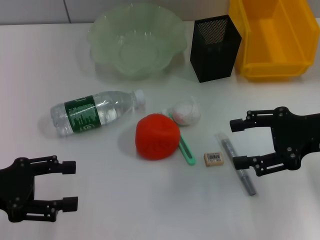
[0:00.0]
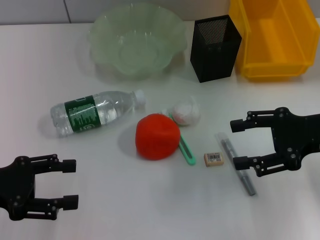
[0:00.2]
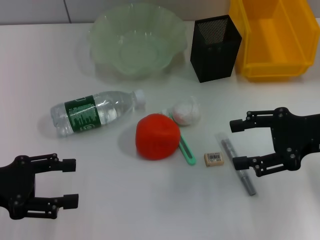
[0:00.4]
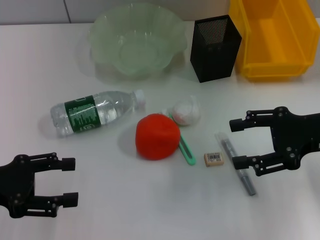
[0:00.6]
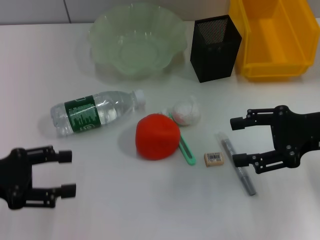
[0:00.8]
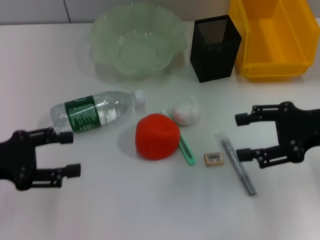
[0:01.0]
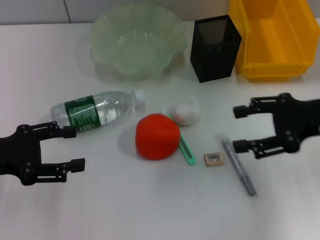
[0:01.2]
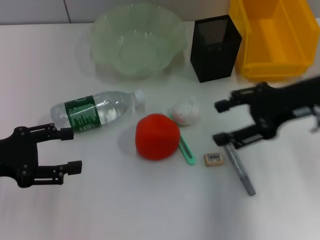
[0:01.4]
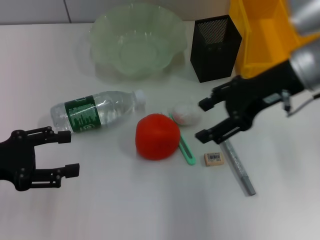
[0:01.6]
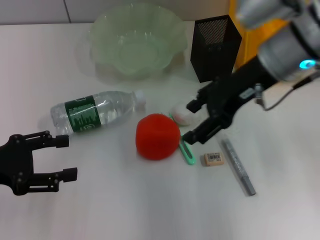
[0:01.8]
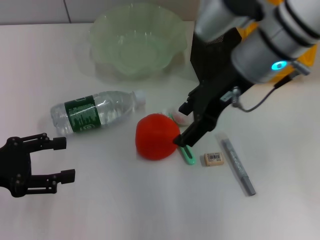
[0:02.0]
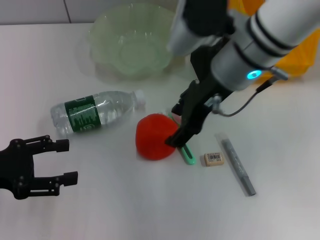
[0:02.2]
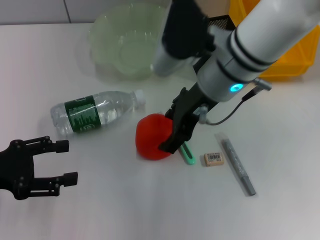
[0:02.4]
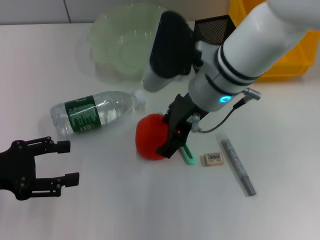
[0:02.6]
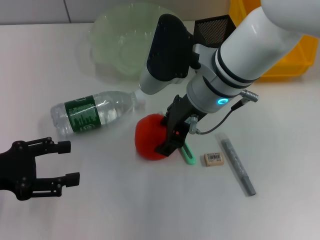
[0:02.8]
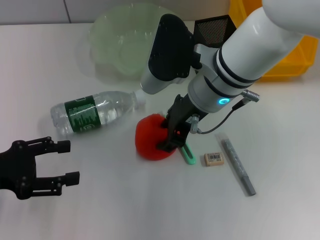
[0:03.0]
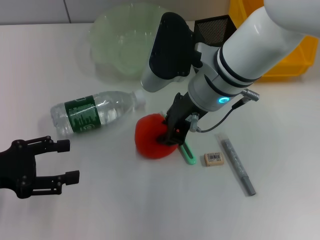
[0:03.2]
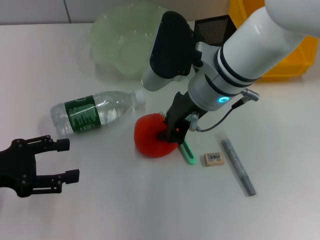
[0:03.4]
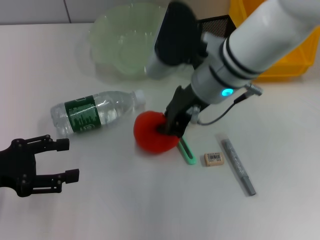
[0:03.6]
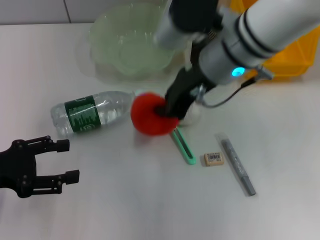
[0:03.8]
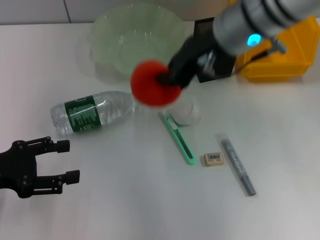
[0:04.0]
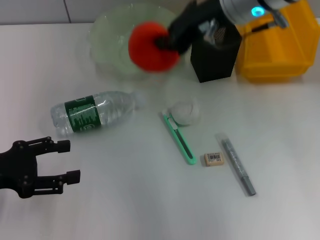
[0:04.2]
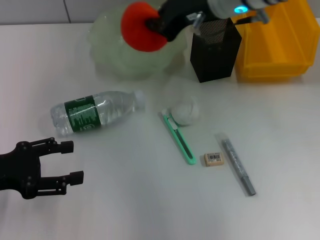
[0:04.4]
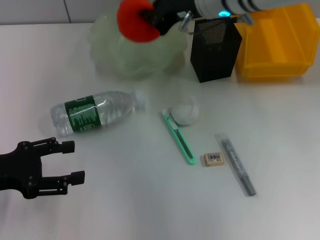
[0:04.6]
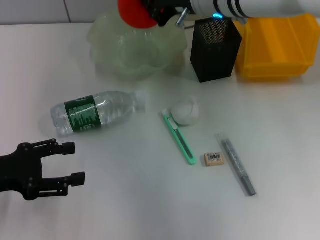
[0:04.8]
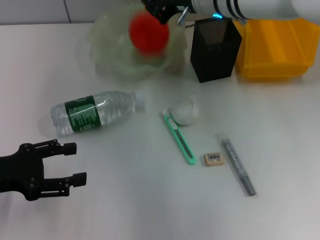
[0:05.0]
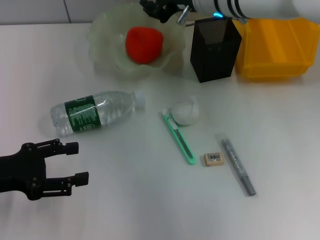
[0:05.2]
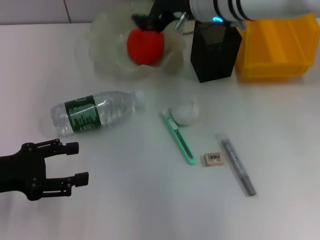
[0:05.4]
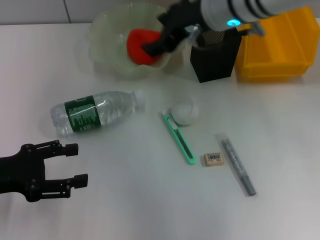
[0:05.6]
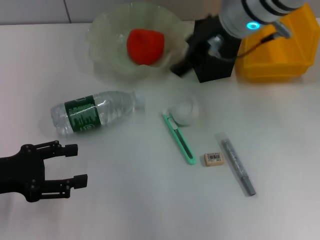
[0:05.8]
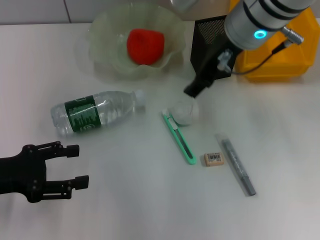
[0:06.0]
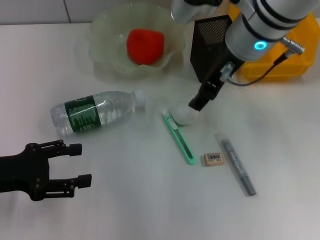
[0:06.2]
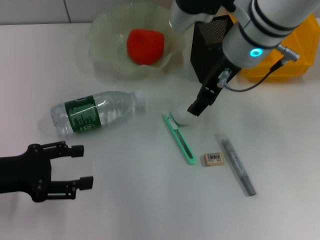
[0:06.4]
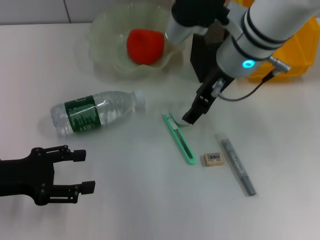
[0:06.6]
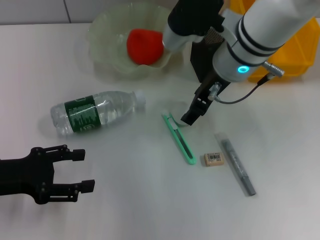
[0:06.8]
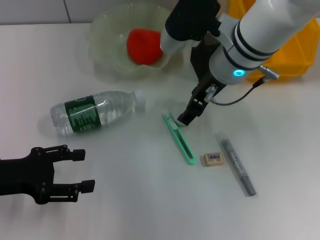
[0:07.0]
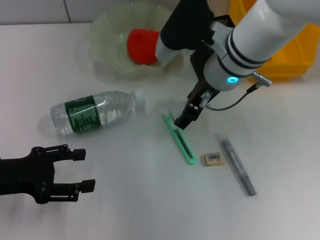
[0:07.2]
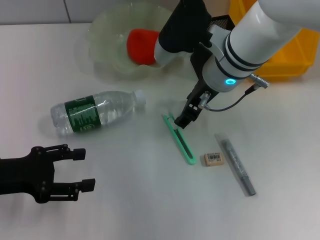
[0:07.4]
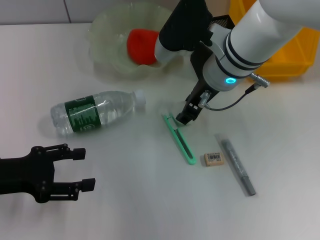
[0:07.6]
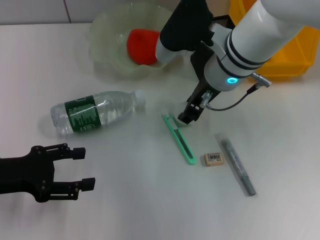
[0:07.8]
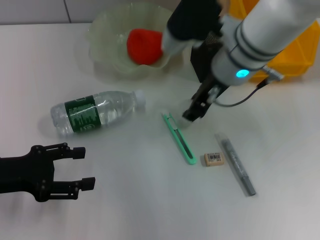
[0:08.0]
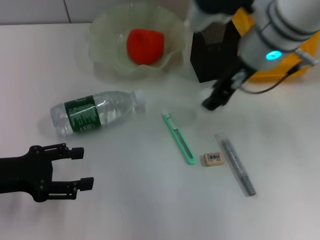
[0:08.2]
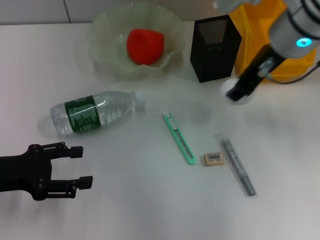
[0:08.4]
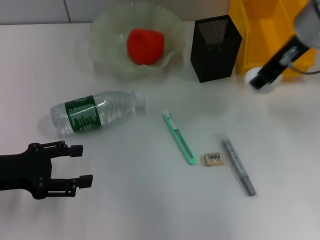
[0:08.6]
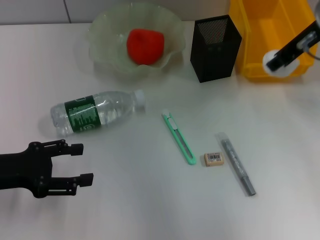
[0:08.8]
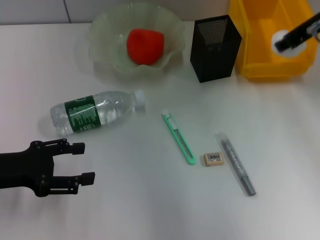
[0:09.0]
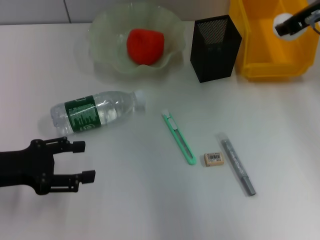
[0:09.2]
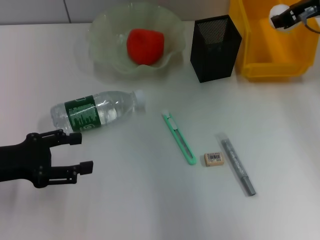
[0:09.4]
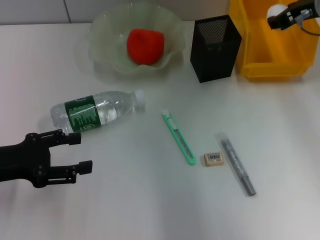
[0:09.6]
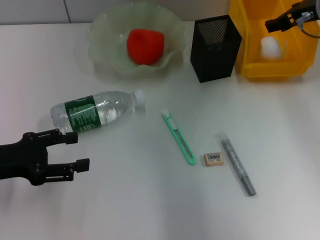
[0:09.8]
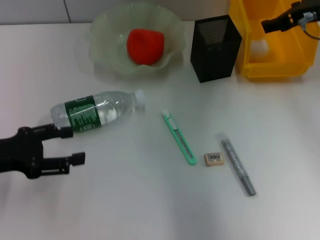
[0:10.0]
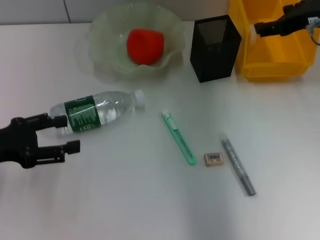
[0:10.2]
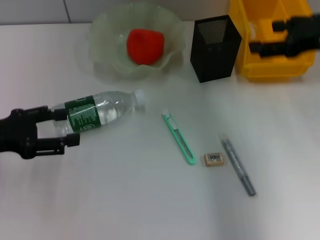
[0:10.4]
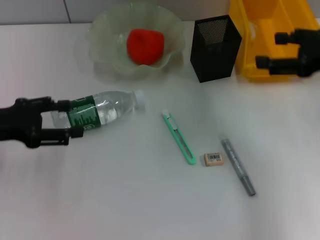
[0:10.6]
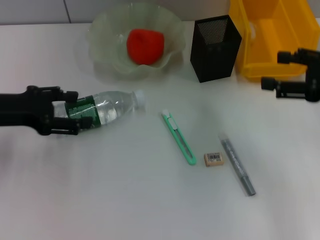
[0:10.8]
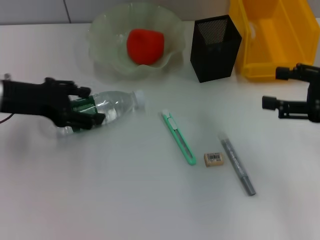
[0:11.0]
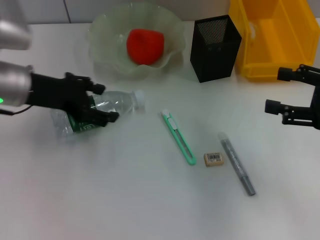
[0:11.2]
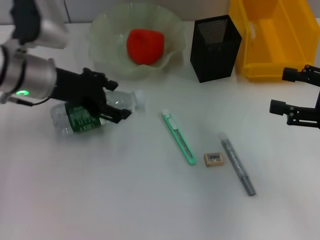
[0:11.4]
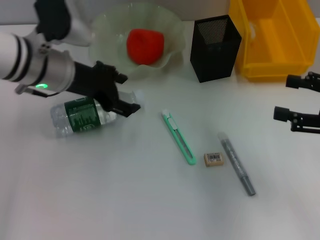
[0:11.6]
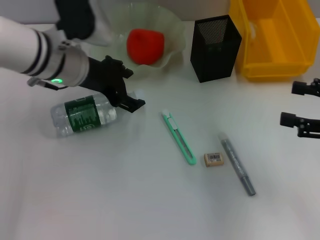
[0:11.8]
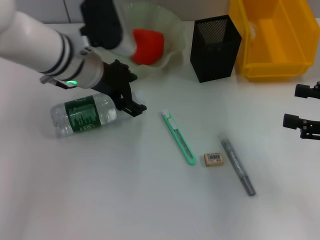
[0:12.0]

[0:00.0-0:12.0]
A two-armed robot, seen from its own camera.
Step, 0:00.0 to 0:03.2: Grab the orange with the right hand.
Step, 0:03.4 to 0:05.0: Place the orange into the fruit bowl with the right hand.
Step, 0:05.2 to 0:07.8: Grab the paper ball with the right hand.
Step, 0:08.0 to 0:10.0: Place the paper ball into the trash can with the right hand.
0:00.0 to 0:01.6: The right gripper heads to the left, upward and forward, covering roughly 15 cm.
0:01.6 to 0:03.0: The right gripper travels to the left by some 10 cm.
0:03.0 to 0:04.4: The right gripper goes some 10 cm upward and forward, and closes its fingers.
0:04.4 to 0:06.0: The right gripper opens.
0:06.0 to 0:07.6: The right gripper is displaced downward by approximately 10 cm.
0:07.6 to 0:09.0: The right gripper heads to the right and upward, covering about 15 cm.
0:09.0 to 0:10.4: The right gripper travels backward and to the right by roughly 10 cm, and opens its fingers.
0:10.4 to 0:12.0: The left gripper is displaced to the right and forward by about 25 cm; the right gripper shifts about 15 cm backward, downward and to the right.

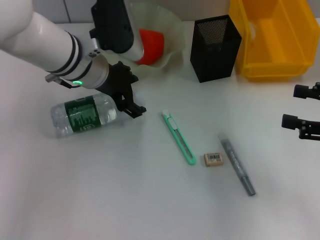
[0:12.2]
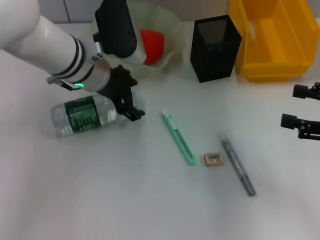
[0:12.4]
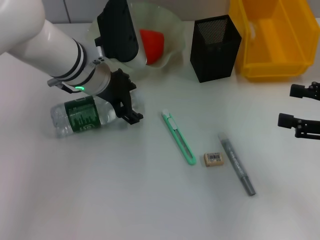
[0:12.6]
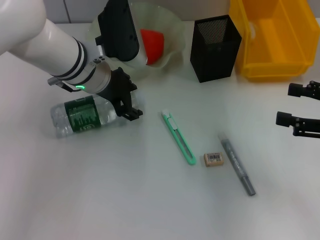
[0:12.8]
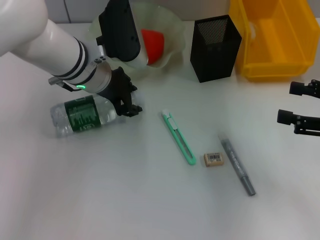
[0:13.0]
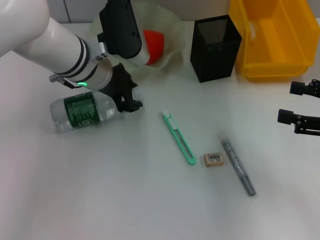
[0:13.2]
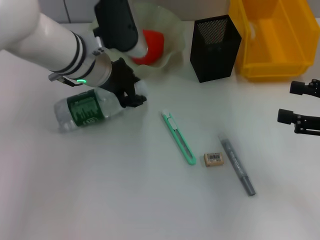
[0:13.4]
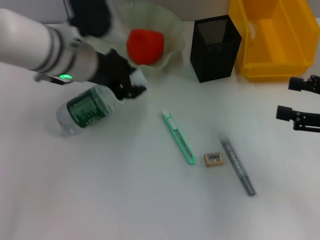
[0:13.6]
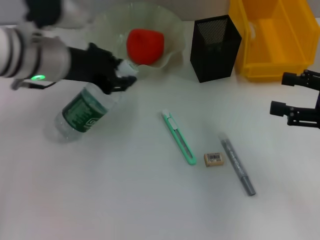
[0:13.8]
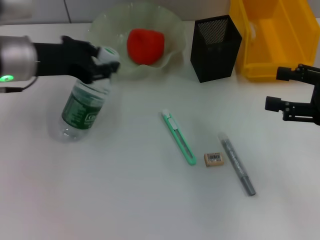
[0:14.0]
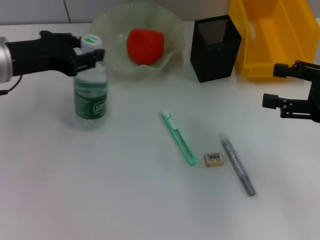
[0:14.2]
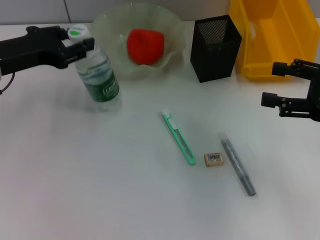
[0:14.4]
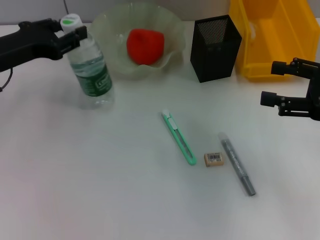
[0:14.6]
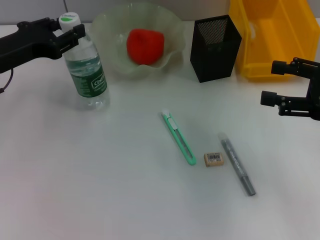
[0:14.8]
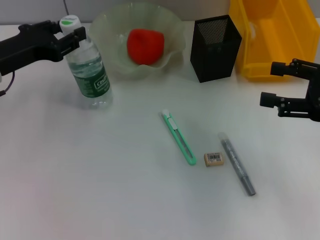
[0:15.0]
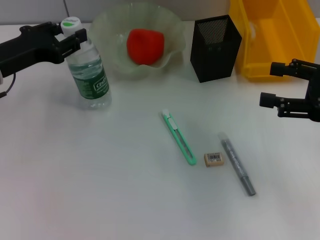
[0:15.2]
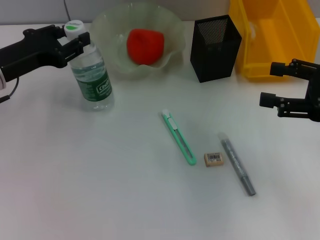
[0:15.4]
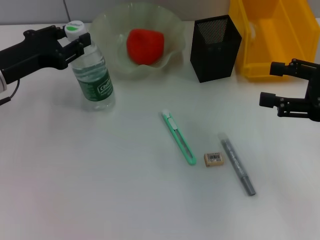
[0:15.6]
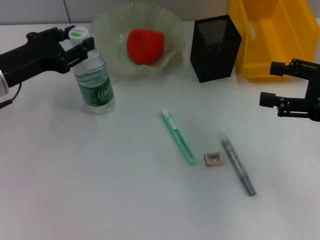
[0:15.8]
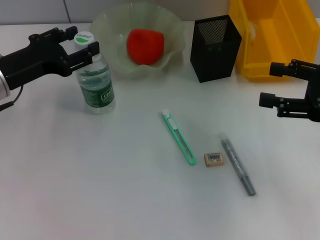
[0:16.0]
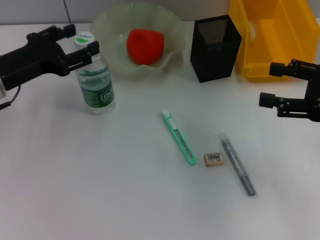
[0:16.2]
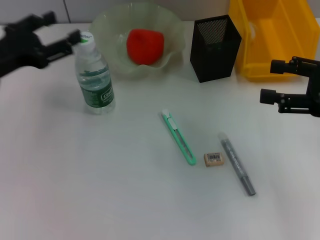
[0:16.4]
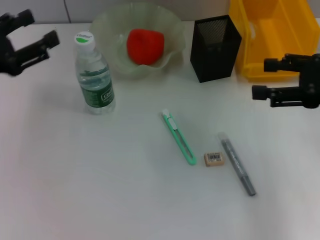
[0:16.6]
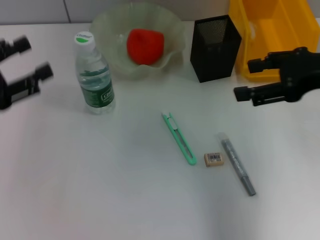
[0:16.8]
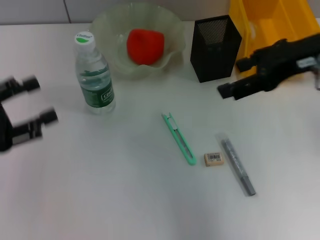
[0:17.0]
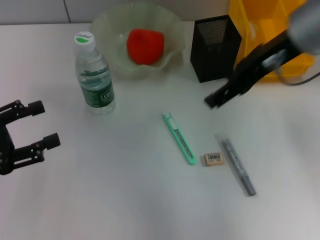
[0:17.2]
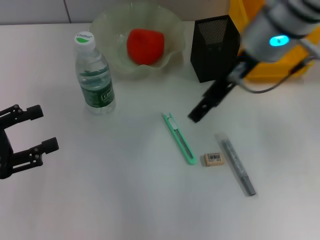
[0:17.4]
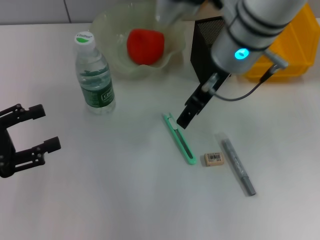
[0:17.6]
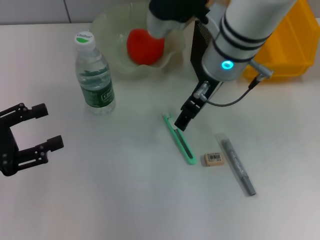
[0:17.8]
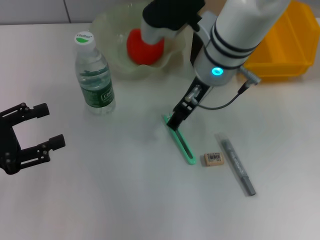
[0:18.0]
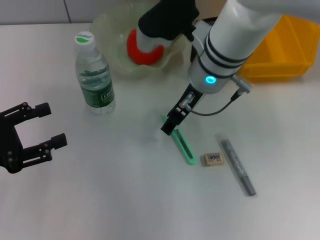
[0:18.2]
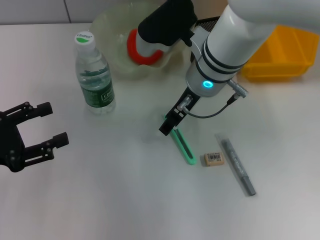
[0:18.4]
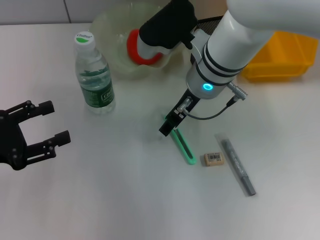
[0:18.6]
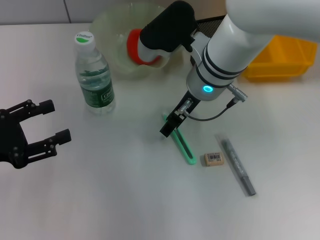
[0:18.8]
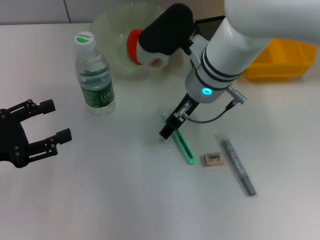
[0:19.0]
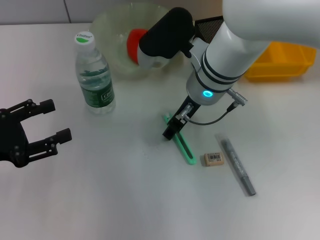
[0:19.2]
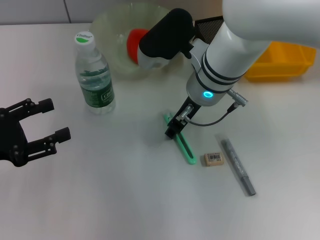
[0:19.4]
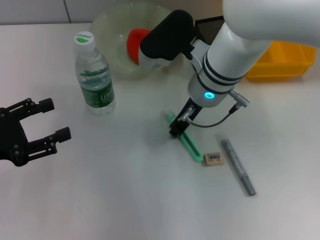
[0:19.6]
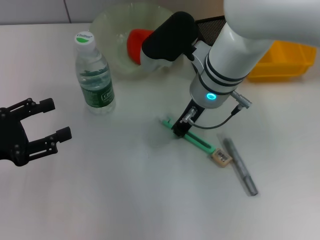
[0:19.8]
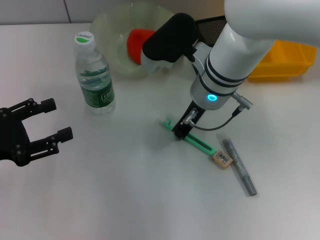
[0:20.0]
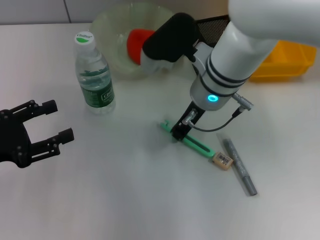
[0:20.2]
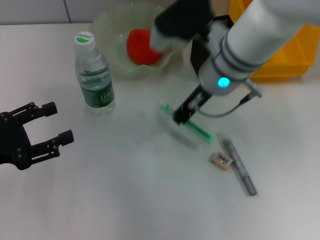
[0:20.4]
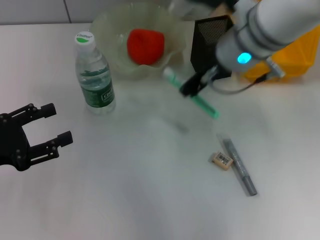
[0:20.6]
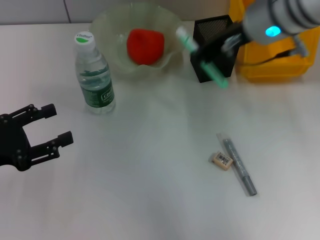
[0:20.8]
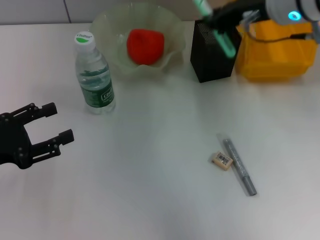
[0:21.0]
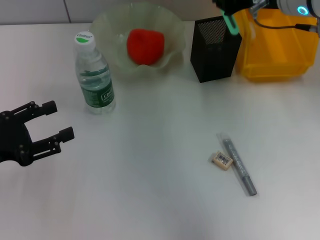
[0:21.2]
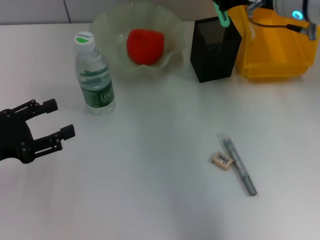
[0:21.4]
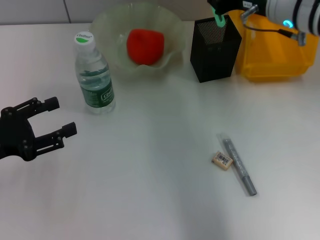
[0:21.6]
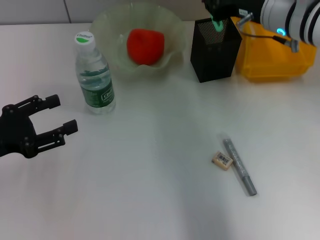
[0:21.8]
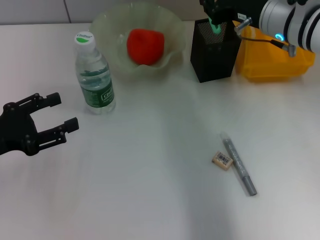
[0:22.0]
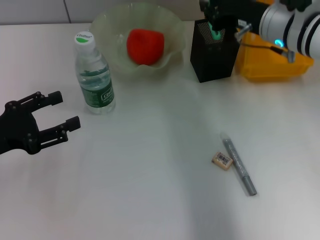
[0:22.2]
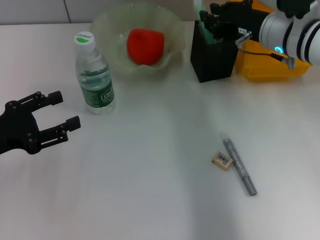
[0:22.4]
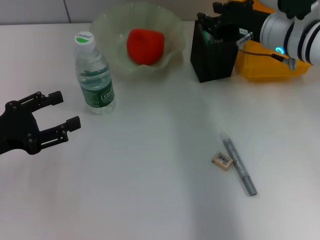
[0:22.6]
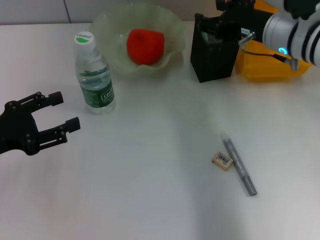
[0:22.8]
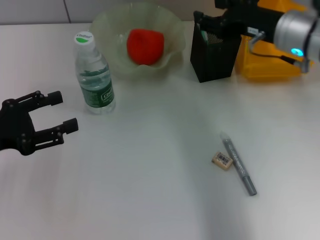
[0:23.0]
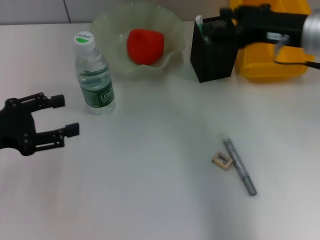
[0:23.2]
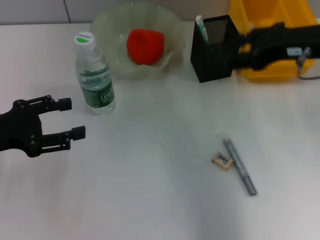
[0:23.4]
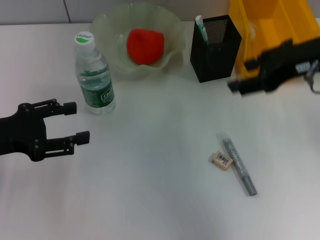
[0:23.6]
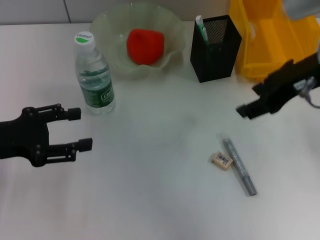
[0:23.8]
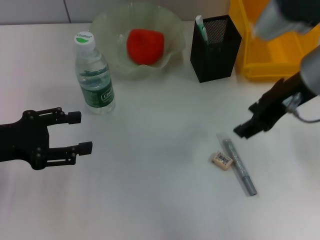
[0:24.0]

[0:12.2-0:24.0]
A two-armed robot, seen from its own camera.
Step, 0:13.2 to 0:16.0: Place the water bottle on the table with the left hand.
Step, 0:16.2 to 0:20.0: Grab the blue utility knife with the right hand.
Step, 0:20.2 to 0:22.4: Place the blue utility knife into the pen holder with the right hand.
0:12.2 to 0:13.6: The left gripper closes.
0:13.6 to 0:15.2: The left gripper heads to the left, covering some 15 cm.
0:15.2 to 0:16.6: The left gripper is displaced backward by about 5 cm, and opens its fingers.
0:16.6 to 0:18.2: The left gripper heads backward, covering approximately 5 cm. The right gripper is displaced to the left by approximately 25 cm.
0:18.2 to 0:19.6: The grippers stay close to where they were, moving slightly.
0:19.6 to 0:21.0: The right gripper travels upward and to the right by about 15 cm, and closes its fingers.
0:21.0 to 0:22.6: The right gripper heads downward, covering roughly 10 cm.
0:22.6 to 0:24.0: The right gripper travels backward and upward by approximately 10 cm, and opens.
